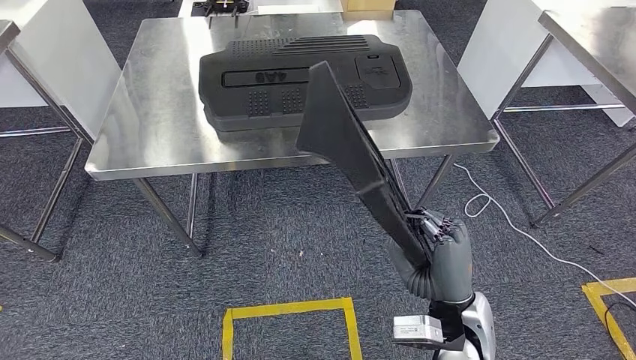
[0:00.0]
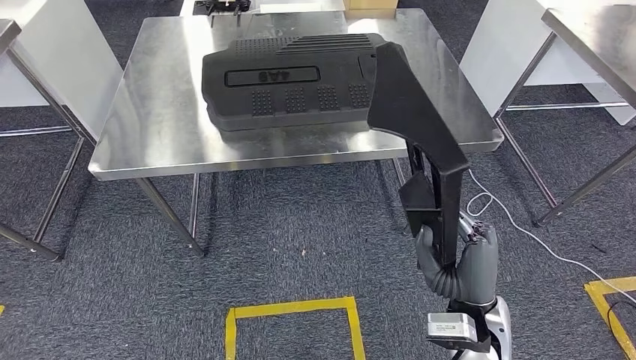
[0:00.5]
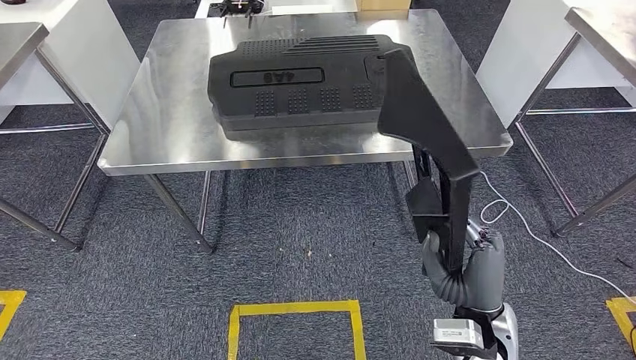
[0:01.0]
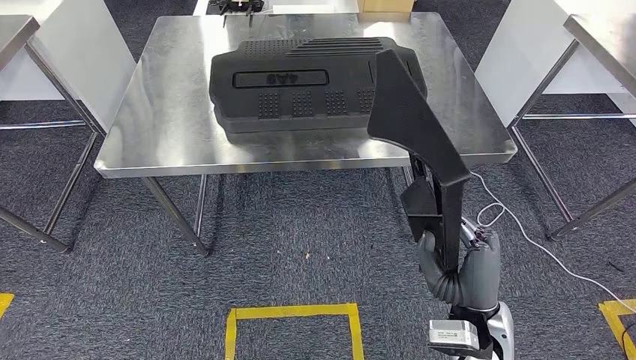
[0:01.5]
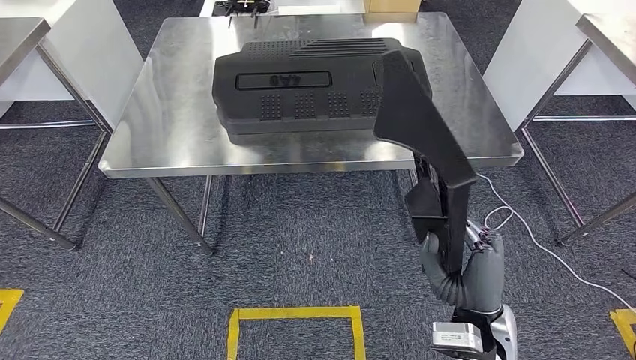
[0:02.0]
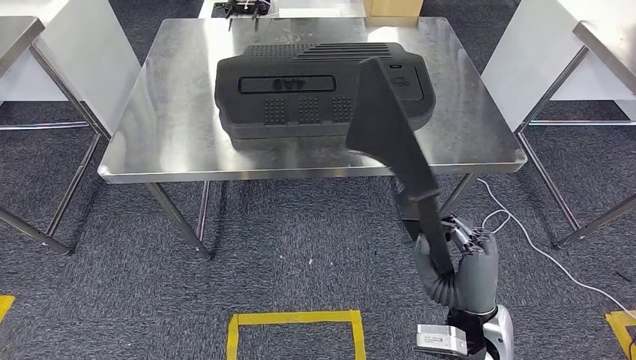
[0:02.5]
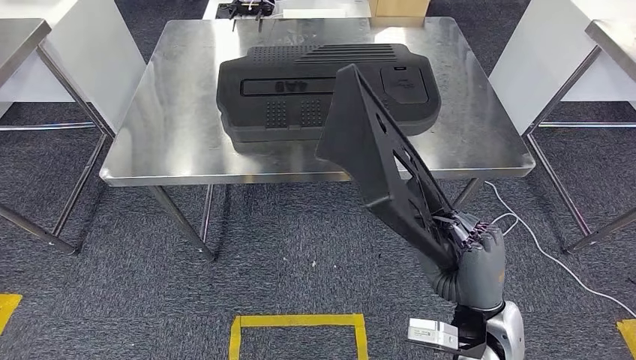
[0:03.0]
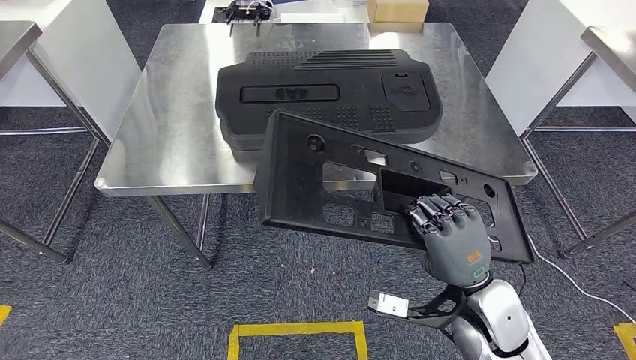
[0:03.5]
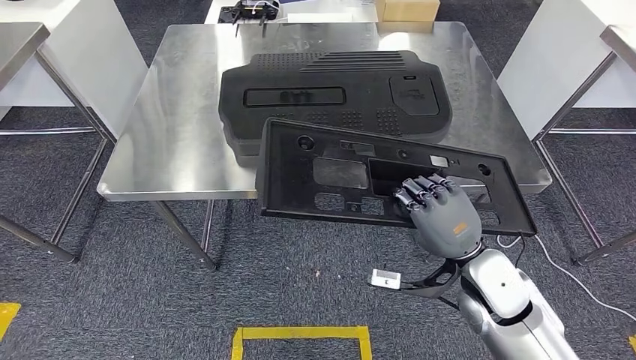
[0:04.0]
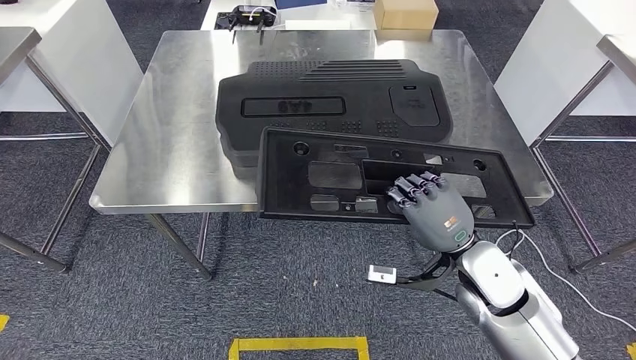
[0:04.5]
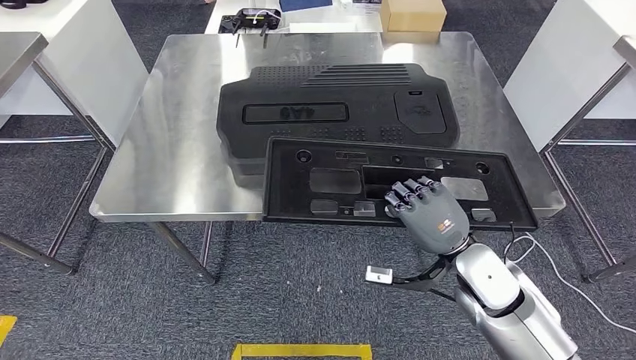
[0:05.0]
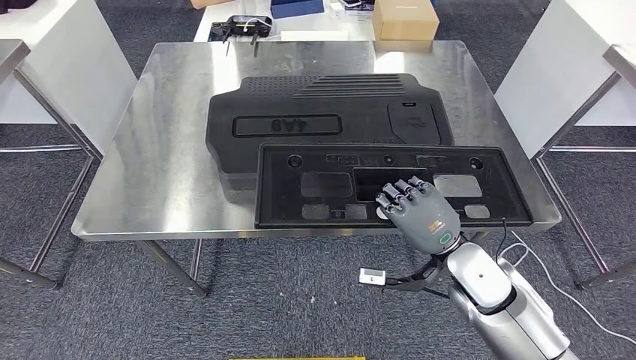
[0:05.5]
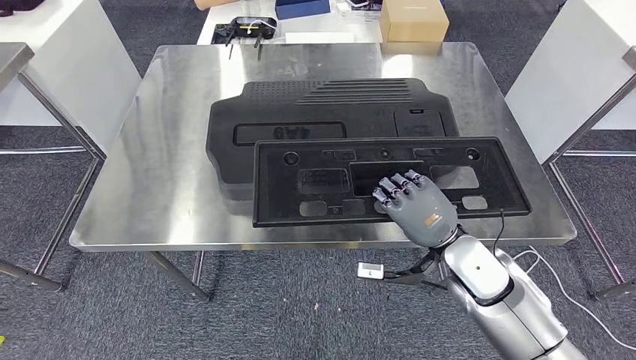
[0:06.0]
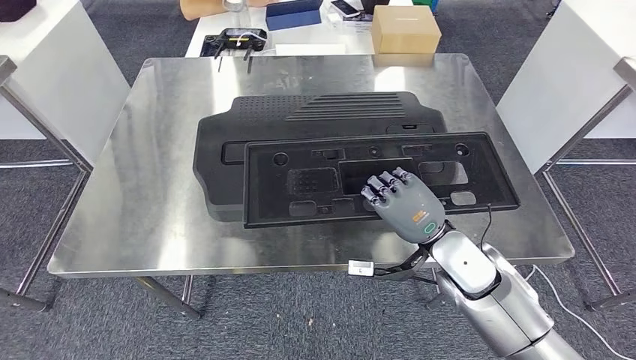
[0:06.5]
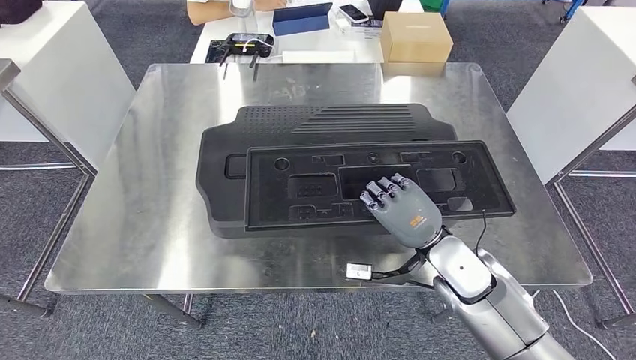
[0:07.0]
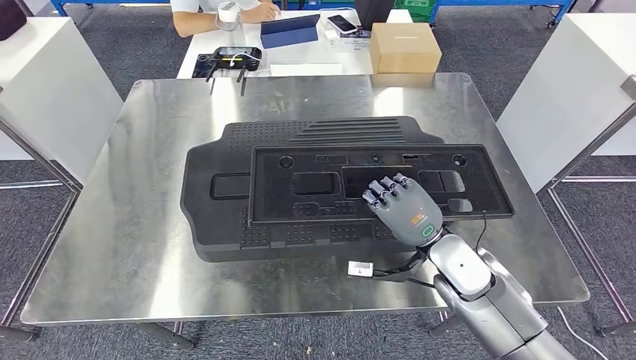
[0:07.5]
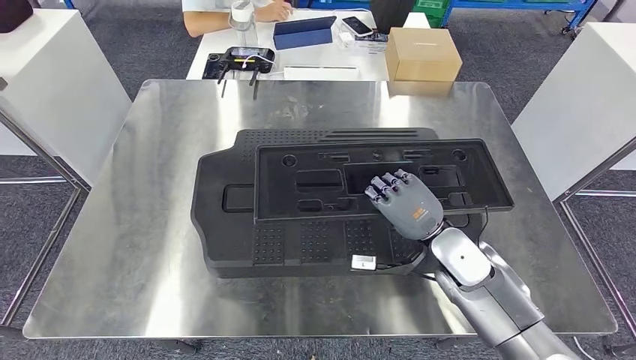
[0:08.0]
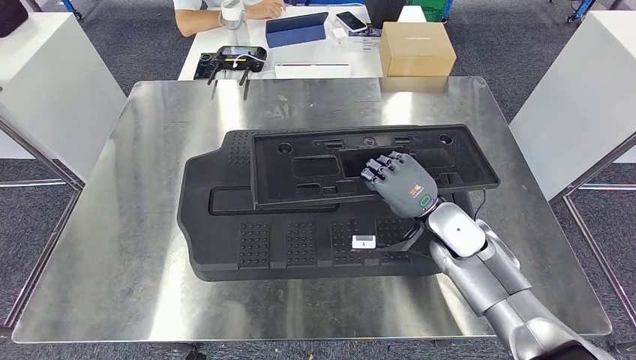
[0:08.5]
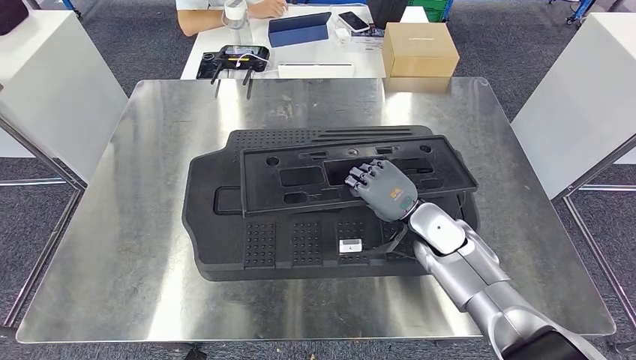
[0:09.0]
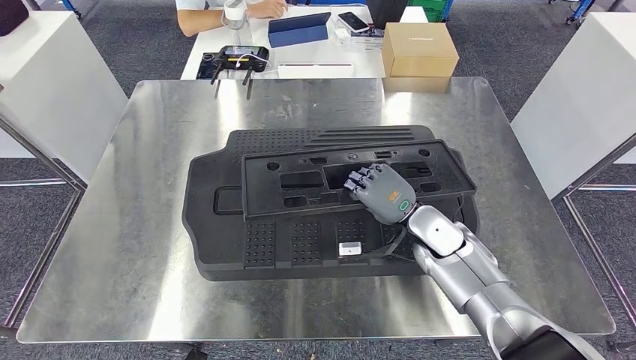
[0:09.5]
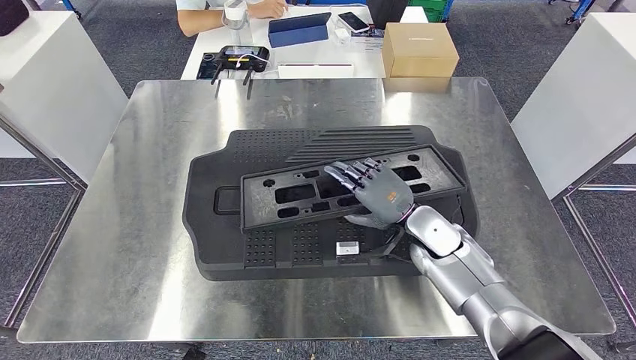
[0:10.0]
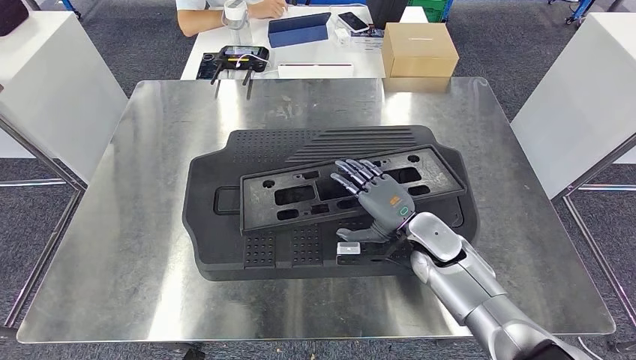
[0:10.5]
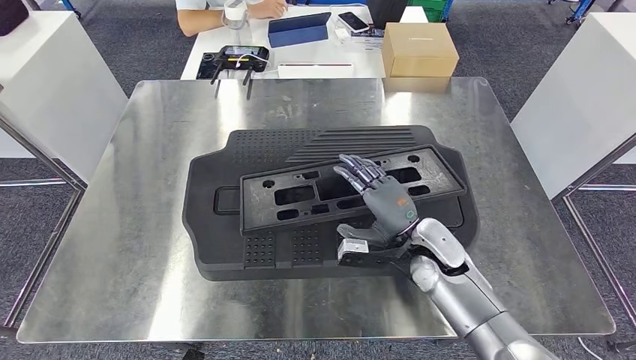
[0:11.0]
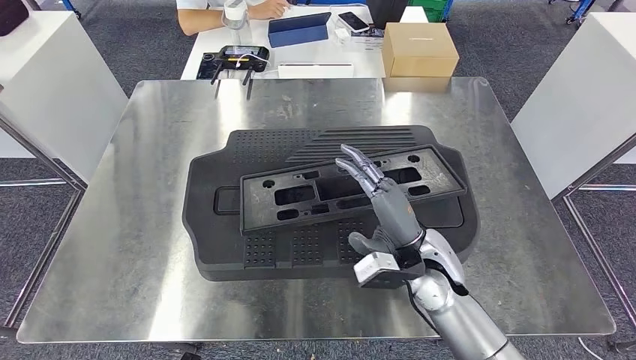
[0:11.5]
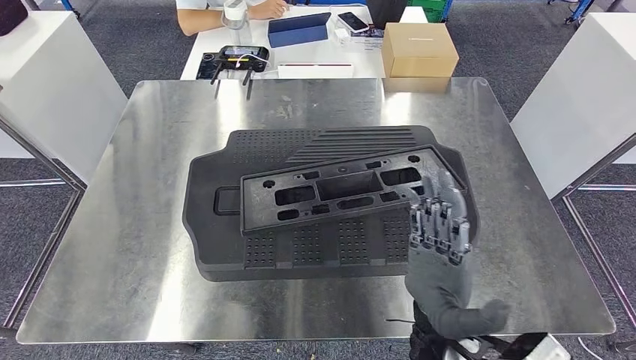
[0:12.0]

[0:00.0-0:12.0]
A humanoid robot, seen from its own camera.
Step, 0:00.0 to 0:11.0: Insert the large material into the corresponding slot on the workbench.
0:10.0 to 0:12.0: The right hand moves backward, some 20 cm.

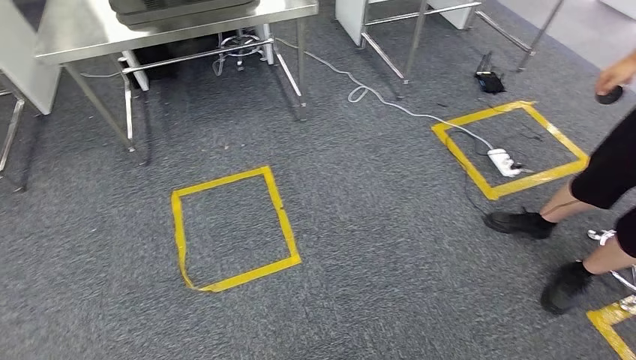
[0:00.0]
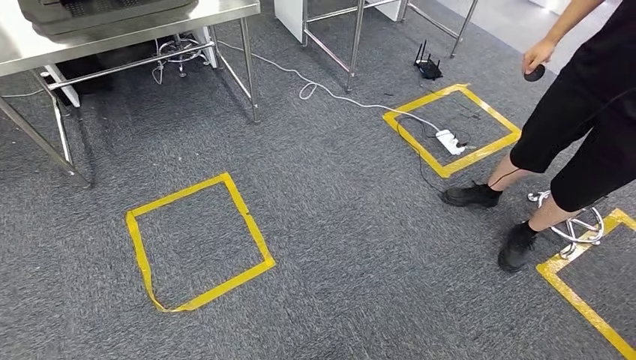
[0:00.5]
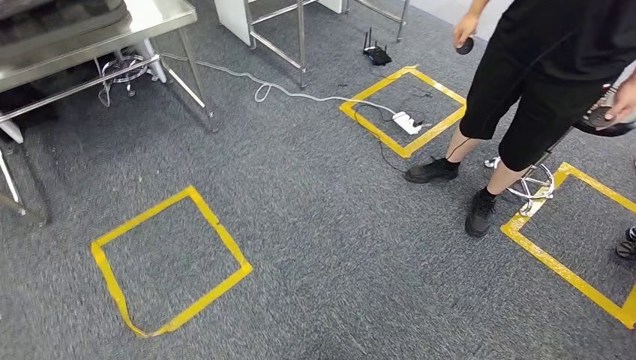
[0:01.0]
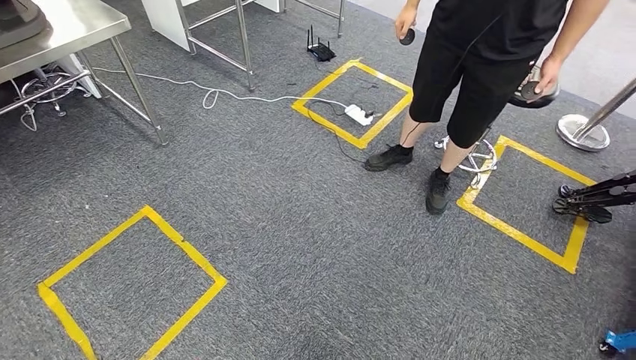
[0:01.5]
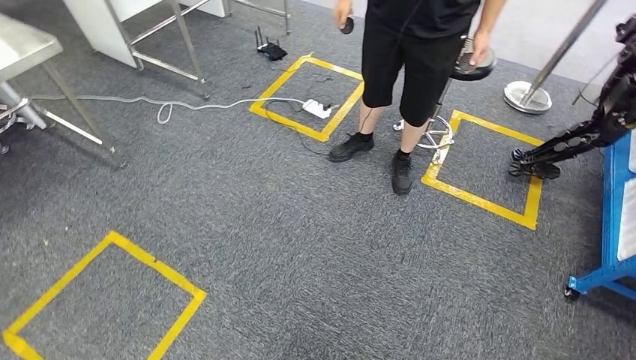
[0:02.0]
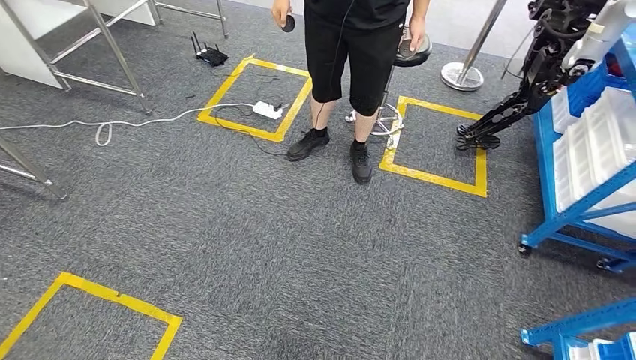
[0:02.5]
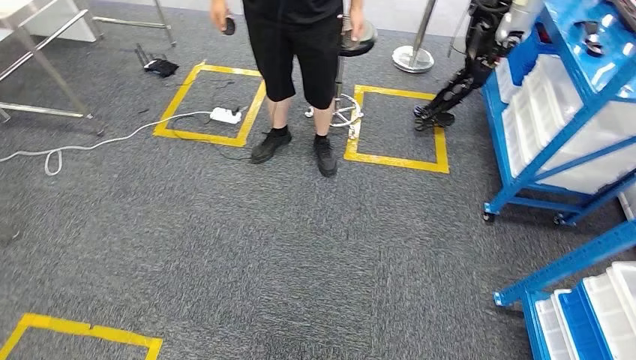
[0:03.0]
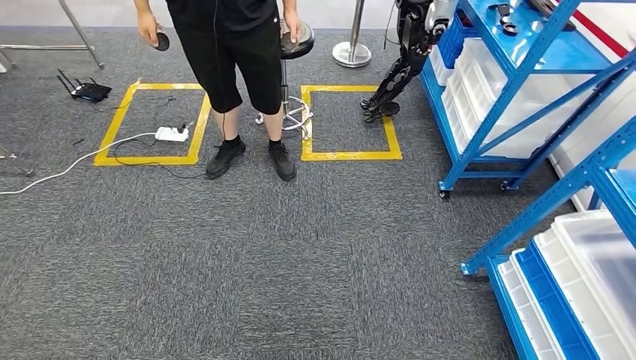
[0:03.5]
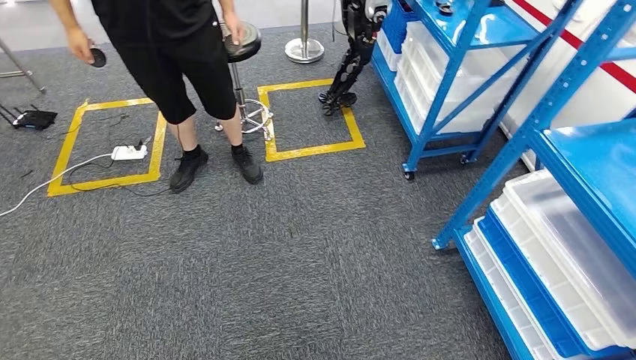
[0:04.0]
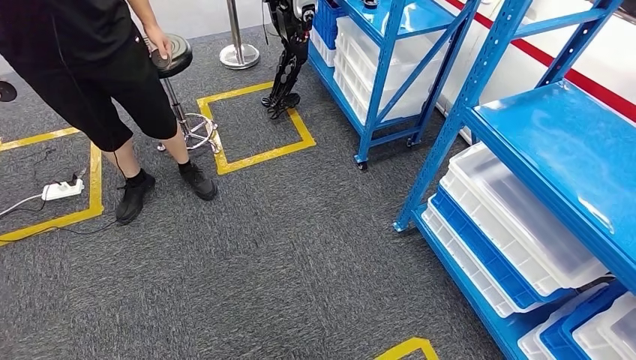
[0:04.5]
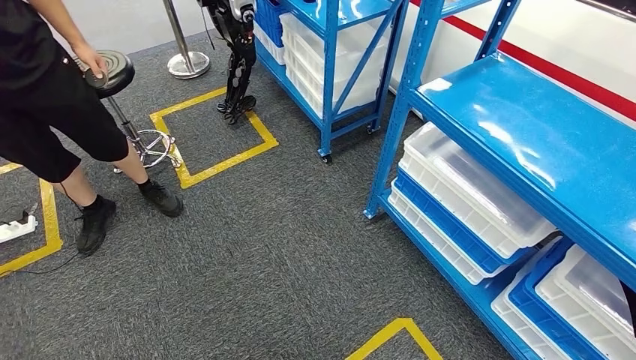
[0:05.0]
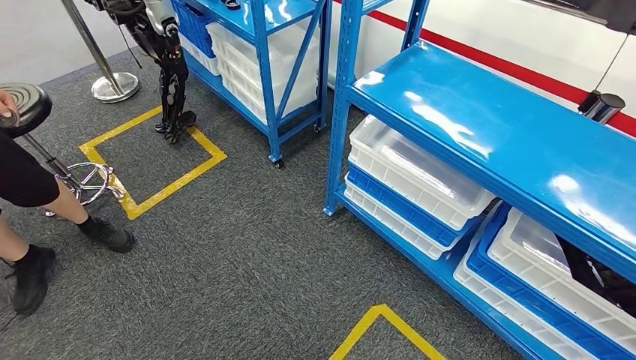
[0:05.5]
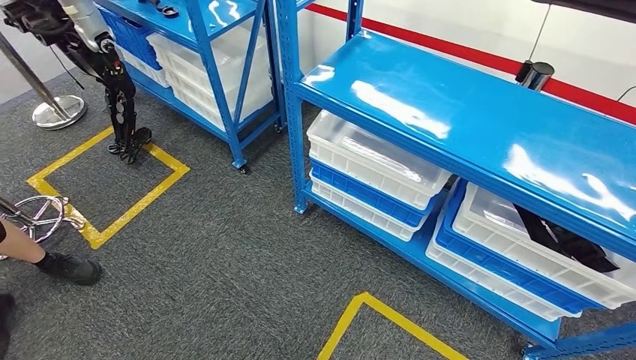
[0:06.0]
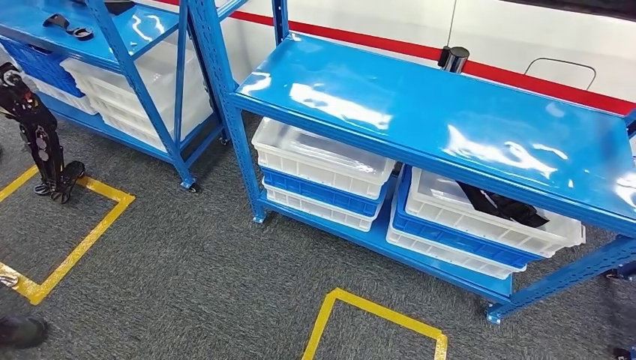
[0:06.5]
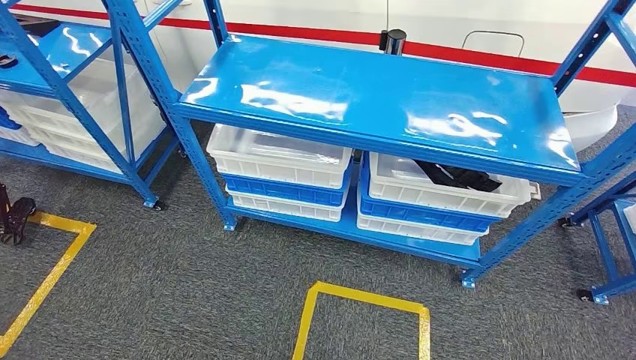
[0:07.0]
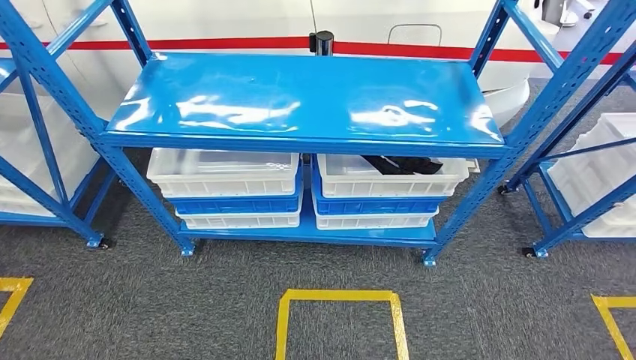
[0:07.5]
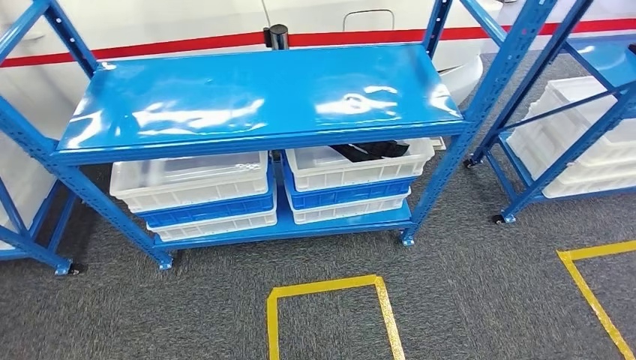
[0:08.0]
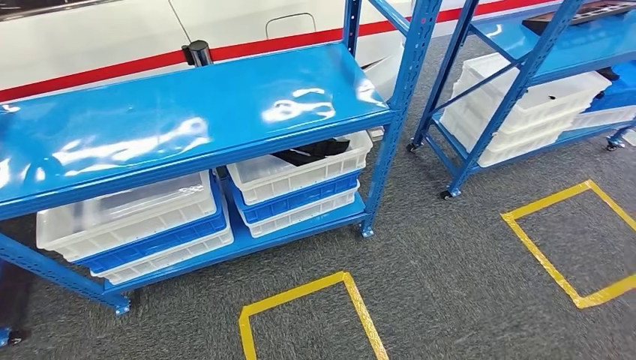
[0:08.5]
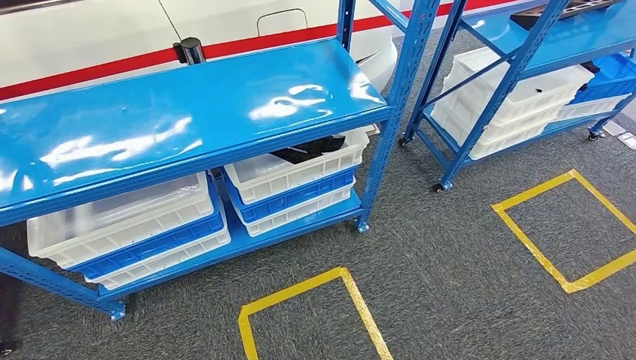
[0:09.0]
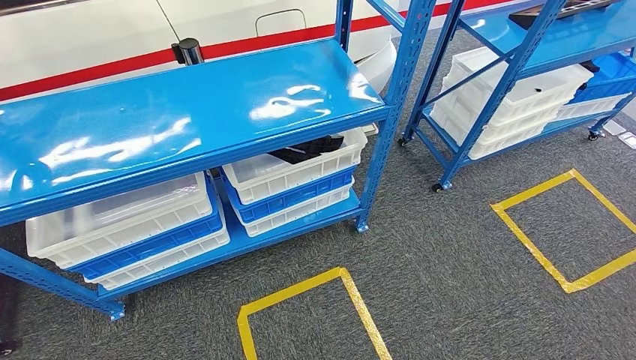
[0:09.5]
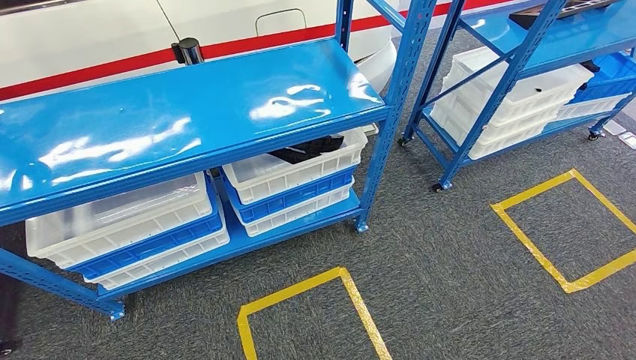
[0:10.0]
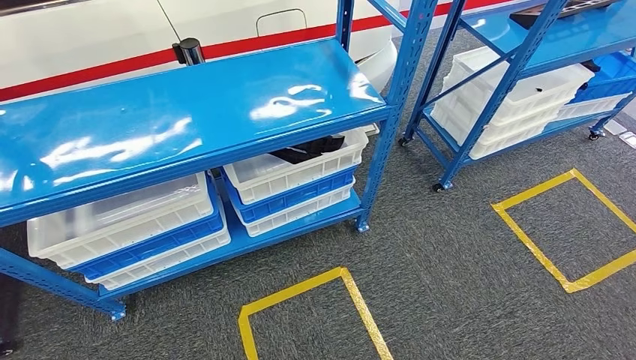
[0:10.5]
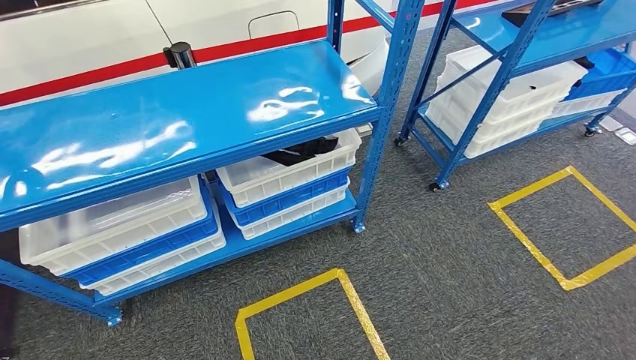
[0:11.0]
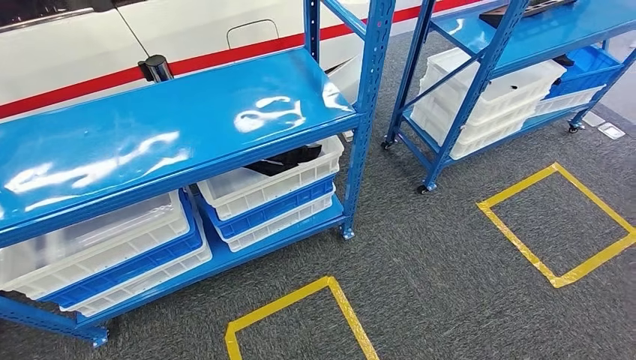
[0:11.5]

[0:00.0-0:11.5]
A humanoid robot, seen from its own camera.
Step, 0:00.0 to 0:11.5: Move to the initial position of the shelf.
